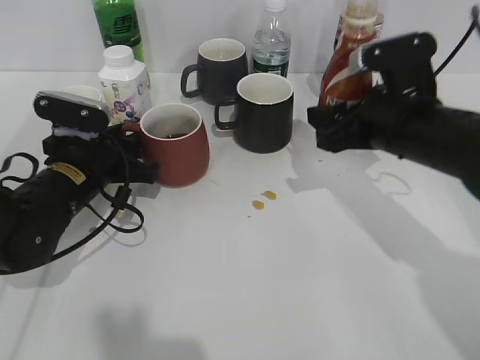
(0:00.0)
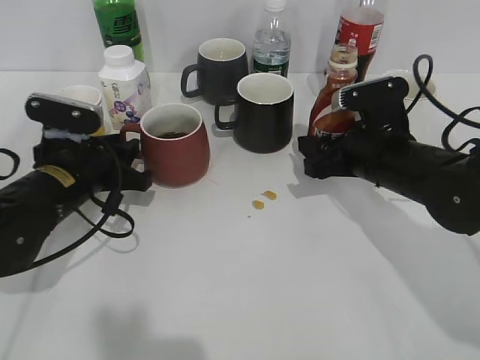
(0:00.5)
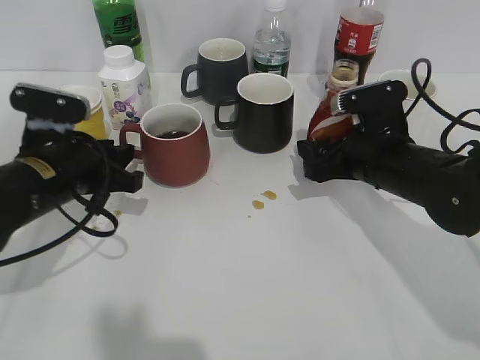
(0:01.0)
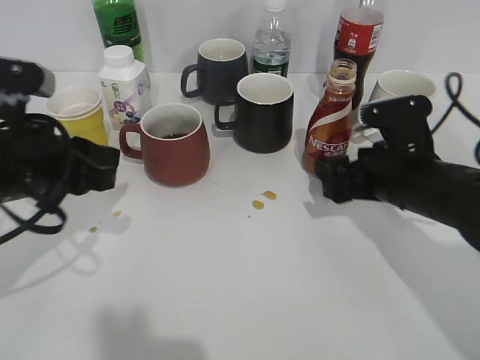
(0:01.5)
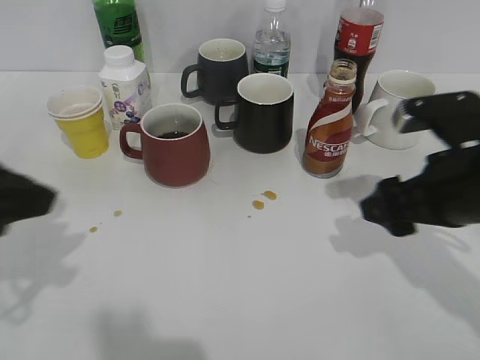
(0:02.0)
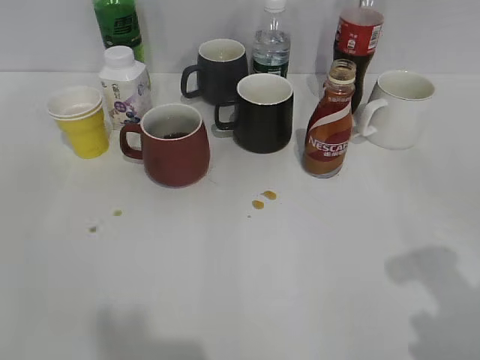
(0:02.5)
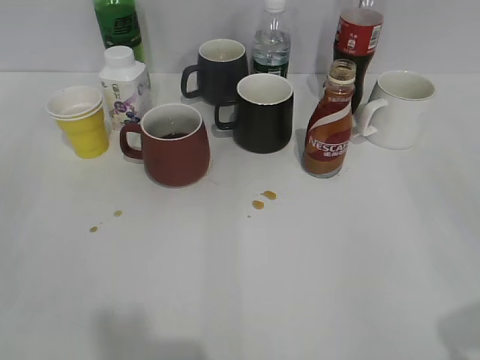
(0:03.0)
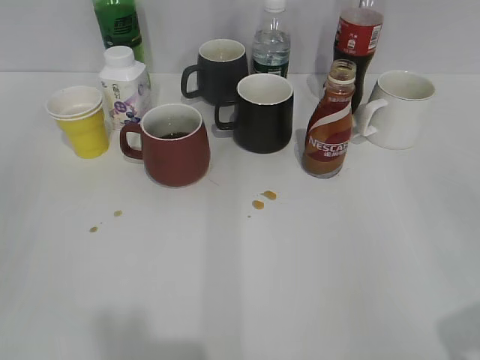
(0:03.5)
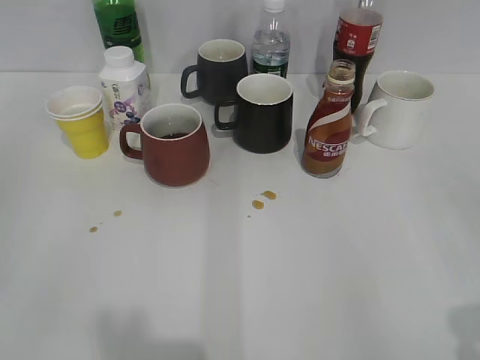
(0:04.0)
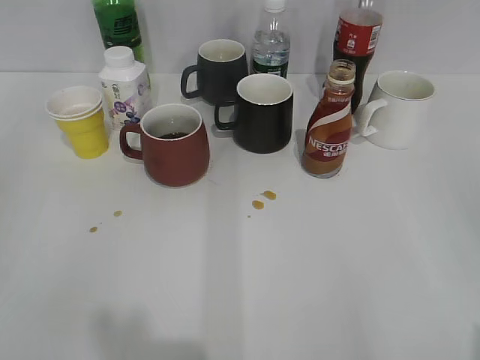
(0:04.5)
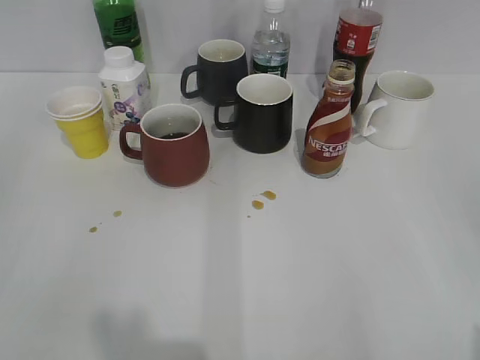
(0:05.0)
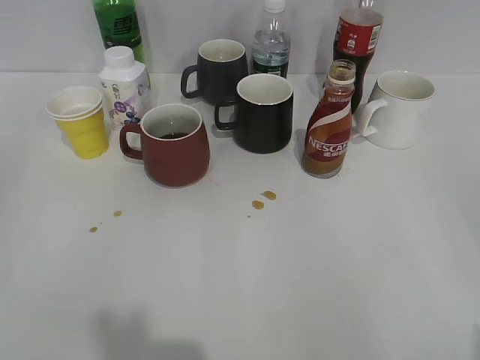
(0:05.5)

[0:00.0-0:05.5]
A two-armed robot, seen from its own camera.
Step, 0:00.0 to 0:01.5: Place the coffee bottle on the table with right gripper.
0:00.0 to 0:02.0: The left gripper moves upward and backward, roughly 20 cm. The right gripper goes roughly 5 cm backward, and opens.
0:02.0 to 0:03.5: The right gripper shifts some 25 cm backward, upward and to the right. The left gripper shifts roughly 15 cm backward and to the left.

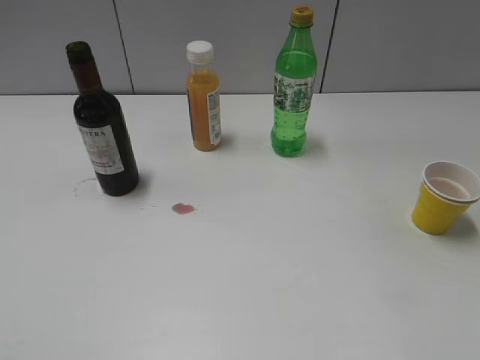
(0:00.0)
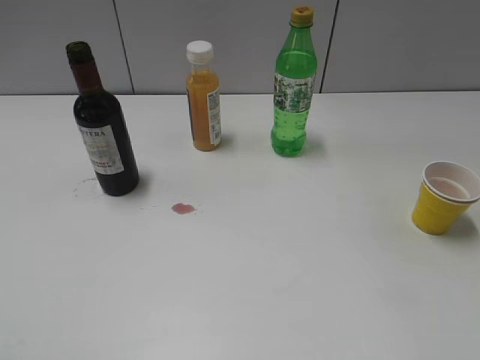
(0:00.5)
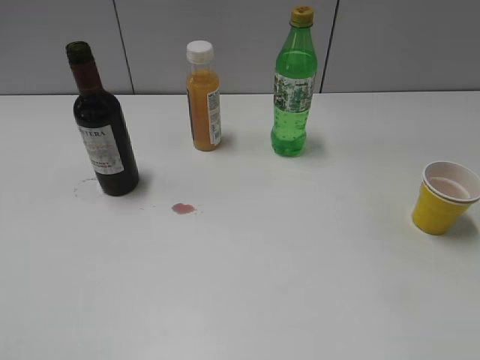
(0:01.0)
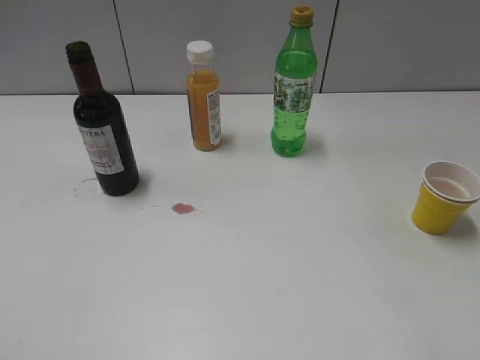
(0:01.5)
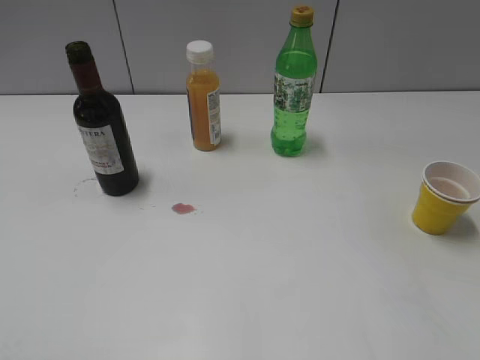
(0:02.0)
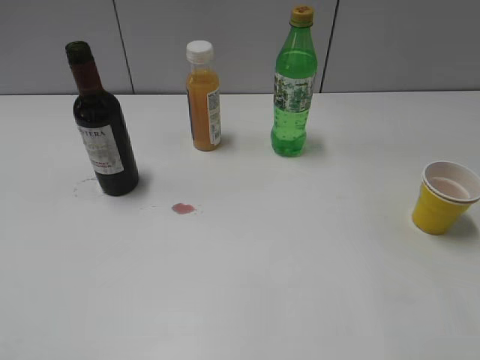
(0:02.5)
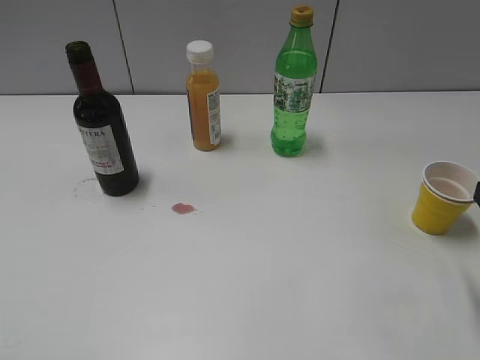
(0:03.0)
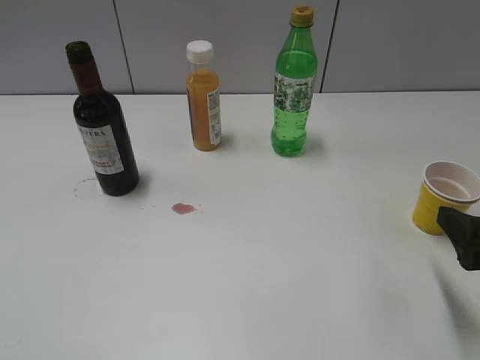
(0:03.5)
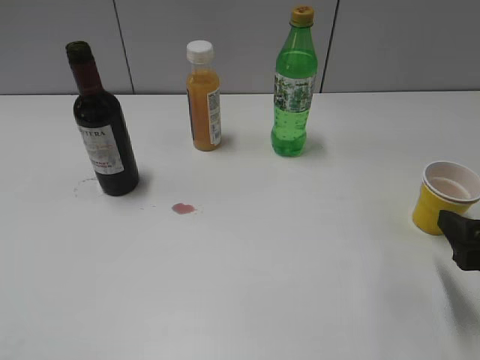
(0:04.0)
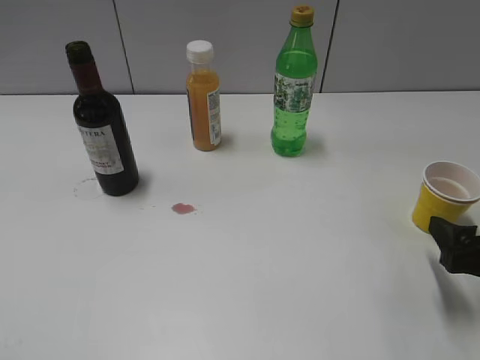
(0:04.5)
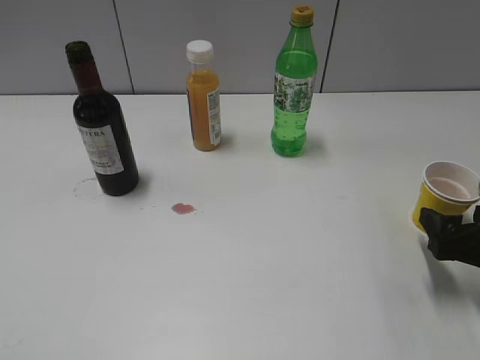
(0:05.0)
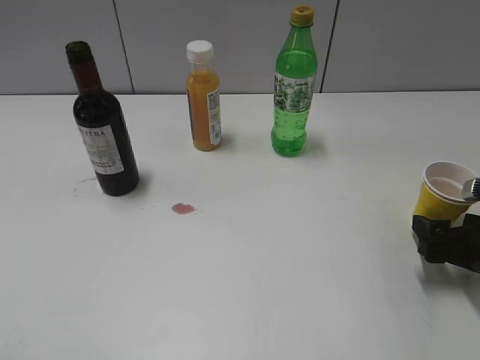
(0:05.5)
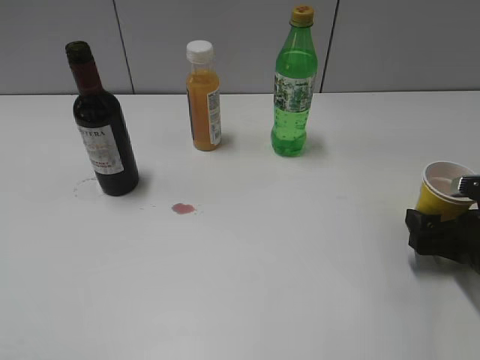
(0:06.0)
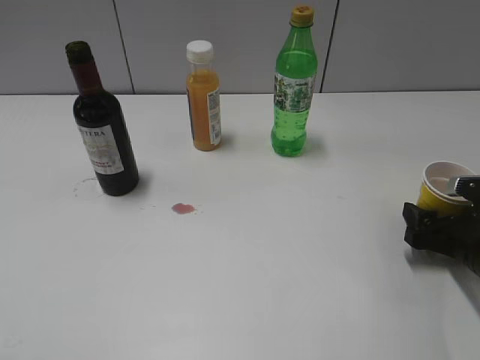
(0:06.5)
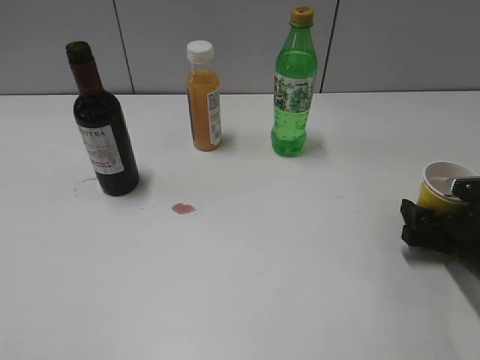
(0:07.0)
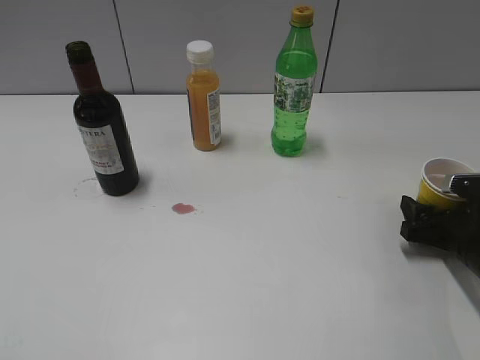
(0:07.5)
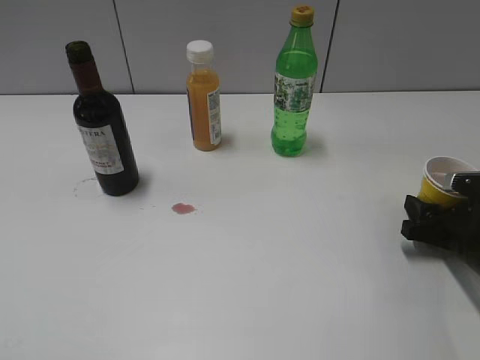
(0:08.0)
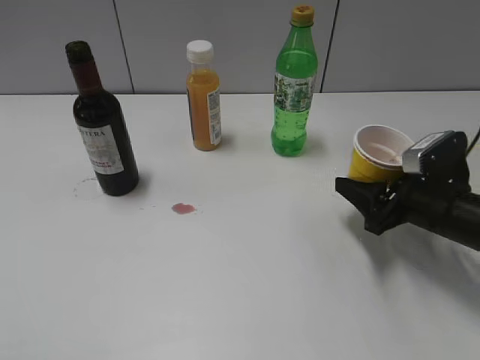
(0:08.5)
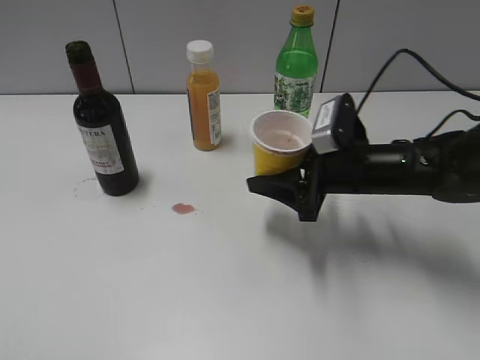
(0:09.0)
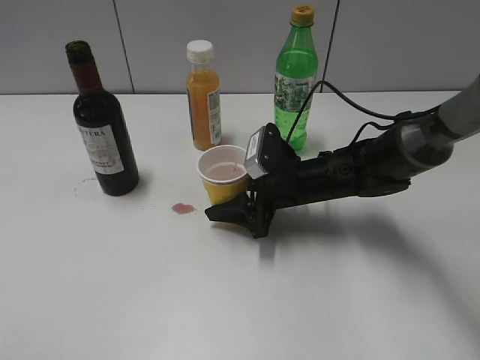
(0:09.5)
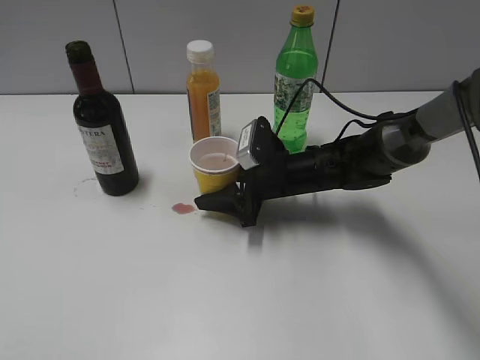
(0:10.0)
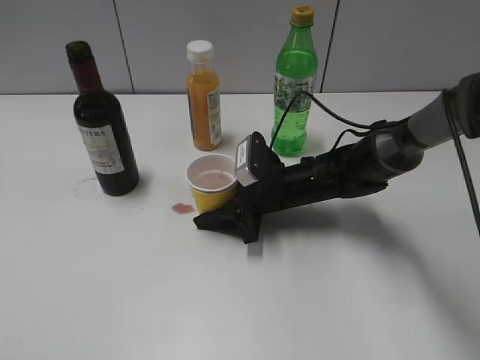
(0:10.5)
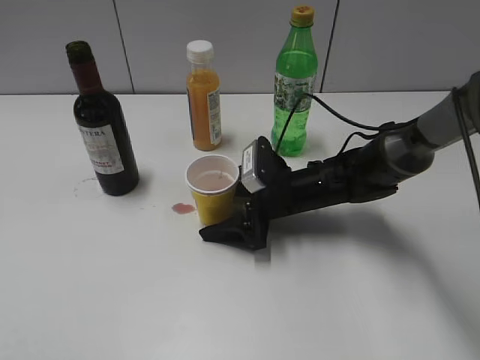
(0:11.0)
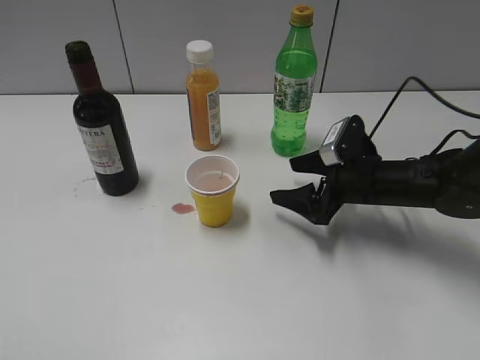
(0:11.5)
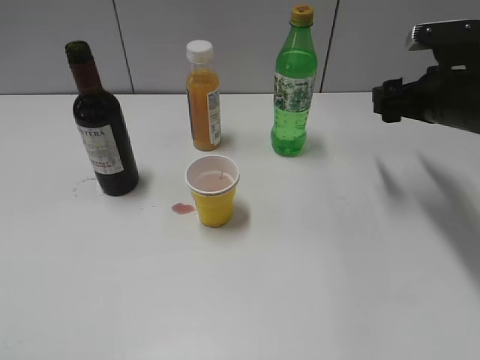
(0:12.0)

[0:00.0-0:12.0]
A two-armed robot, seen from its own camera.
Step, 0:01.0 to 0:07.5: Grasp the yellow paper cup with right gripper.
Step, 0:08.0 to 0:11.0: Place the yellow paper cup on the table with right gripper.
0:02.0 to 0:04.0: The right gripper travels downward by some 15 cm, and closes, then reopens.
0:04.0 to 0:06.0: The right gripper moves downward and forward, approximately 10 cm.
0:06.0 to 0:08.0: The right gripper closes its fingers.
0:08.0 to 0:10.0: The right gripper is displaced to the left and forward by approximately 25 cm.
0:10.0 to 0:12.0: The right gripper moves to the right and upward, some 20 cm, and opens.

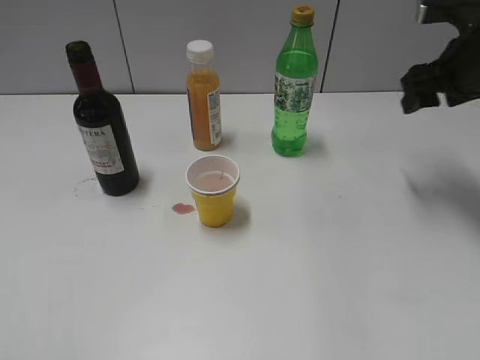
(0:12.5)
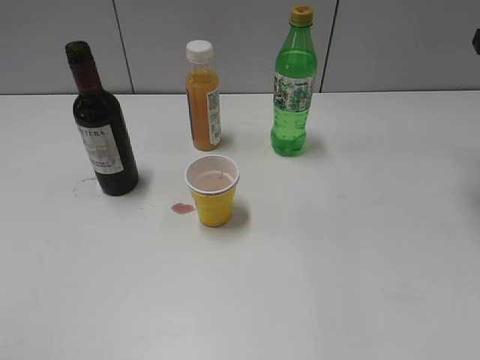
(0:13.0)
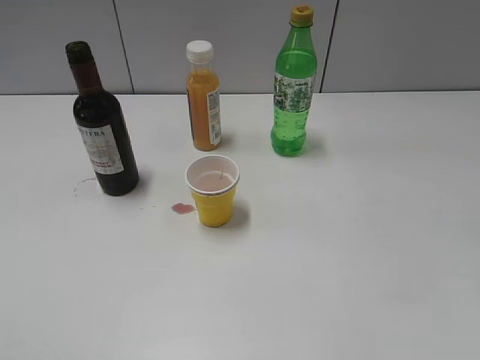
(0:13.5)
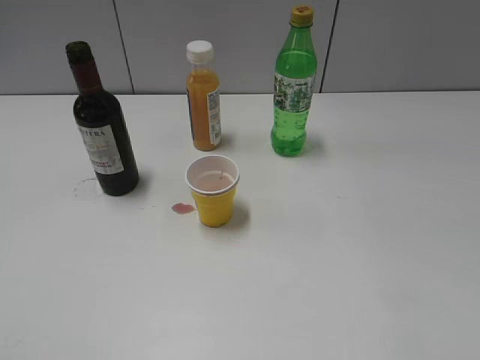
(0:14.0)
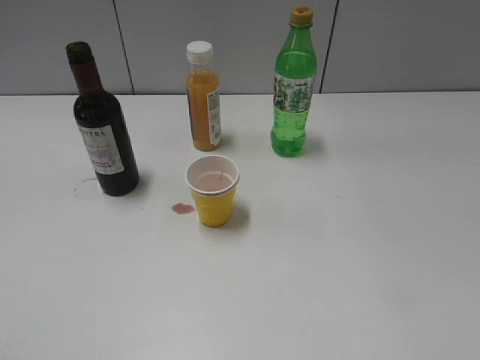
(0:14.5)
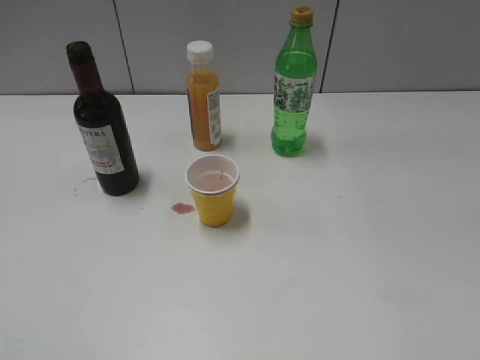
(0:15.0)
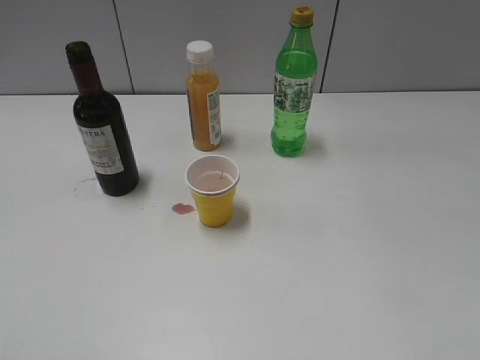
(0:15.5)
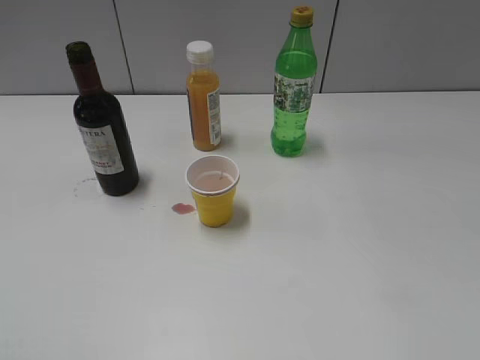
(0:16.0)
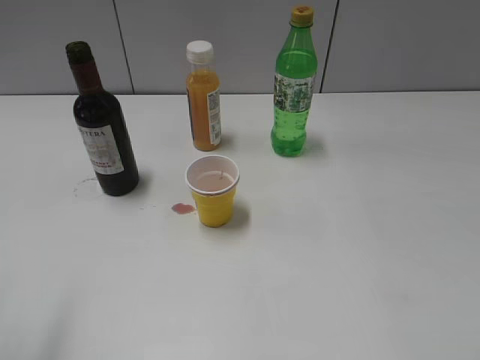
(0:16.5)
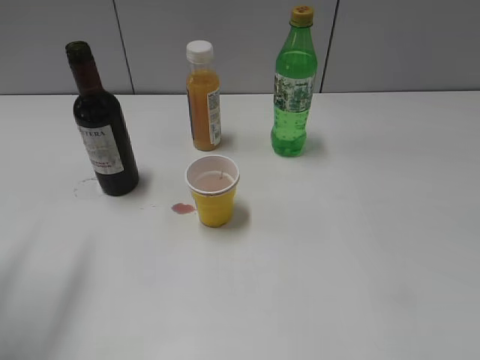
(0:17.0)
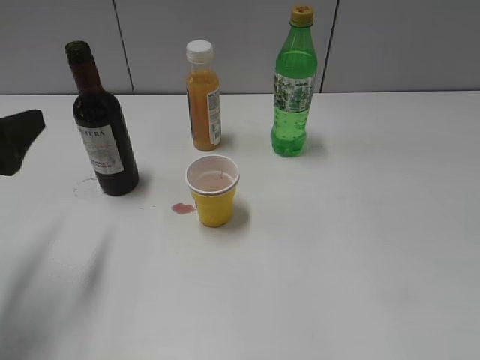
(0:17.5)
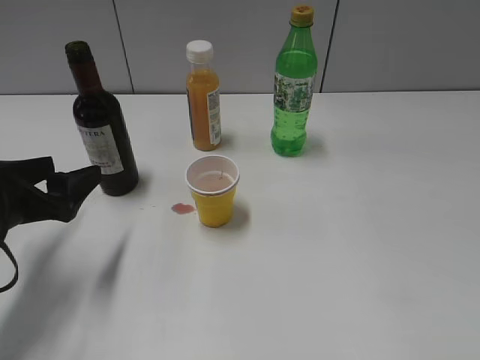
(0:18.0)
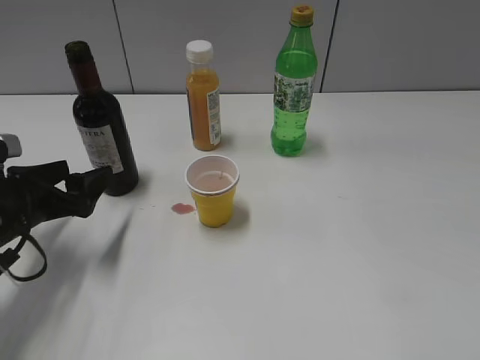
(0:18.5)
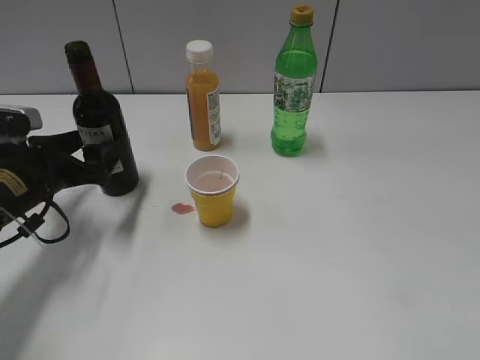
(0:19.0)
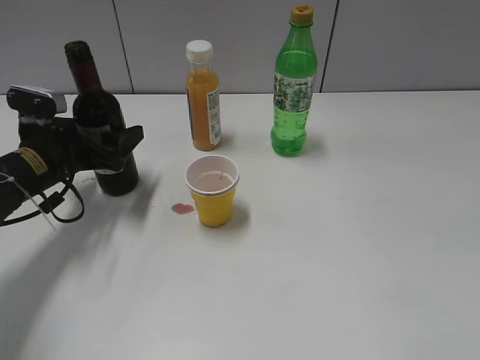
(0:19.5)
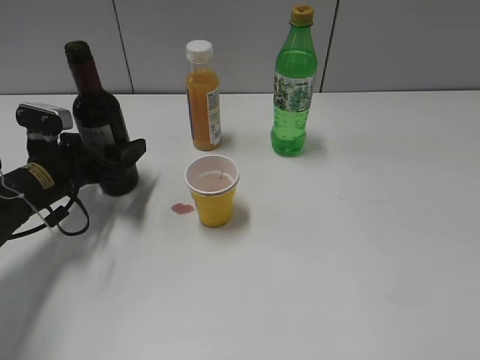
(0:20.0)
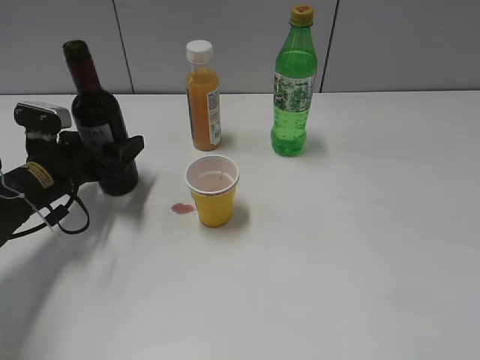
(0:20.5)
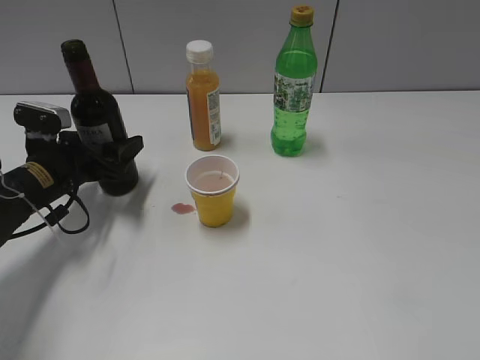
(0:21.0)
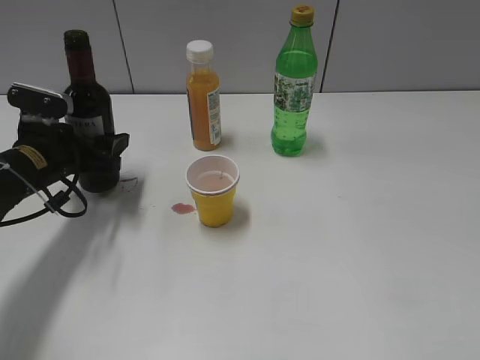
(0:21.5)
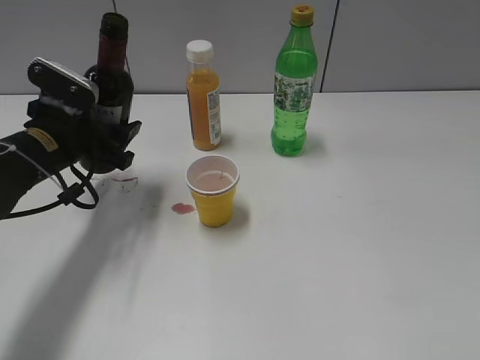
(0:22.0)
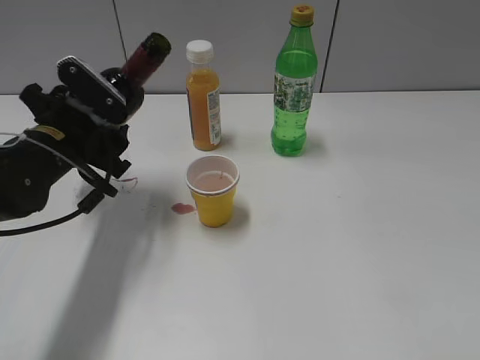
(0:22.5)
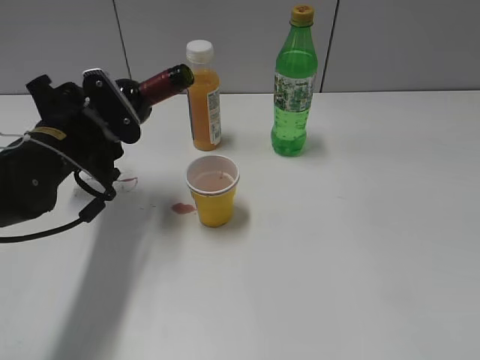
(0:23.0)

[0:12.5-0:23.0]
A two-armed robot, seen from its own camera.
Step, 0:12.5 to 0:21.0: Grasp the bottle with red wine with left gripper.
0:12.5 to 0:14.5: The right gripper travels backward by approximately 35 cm.
0:16.5 to 0:19.0: The left gripper heads downward and forward, covering approximately 30 cm.
0:19.0 to 0:21.0: The grippers move only a little.
0:21.0 to 0:23.0: The left gripper moves upward, some 5 cm.
